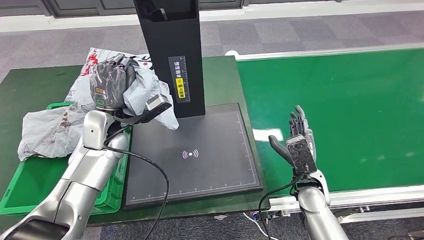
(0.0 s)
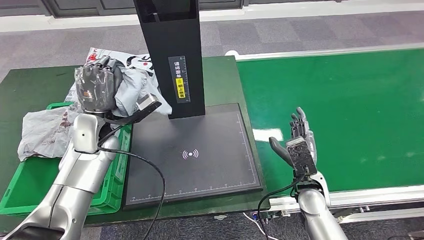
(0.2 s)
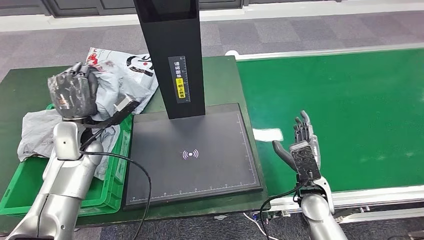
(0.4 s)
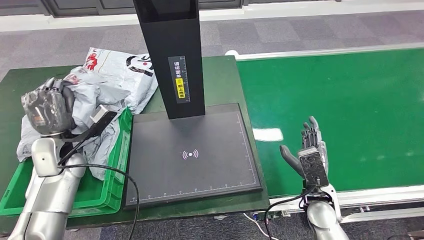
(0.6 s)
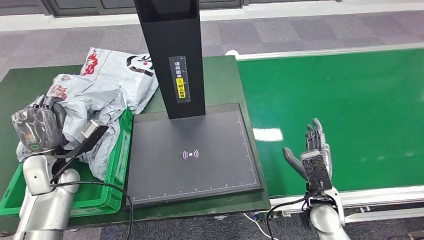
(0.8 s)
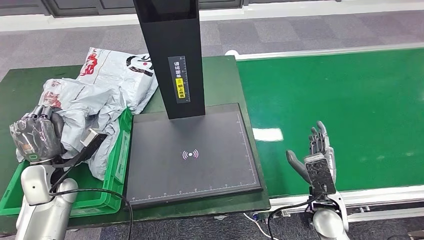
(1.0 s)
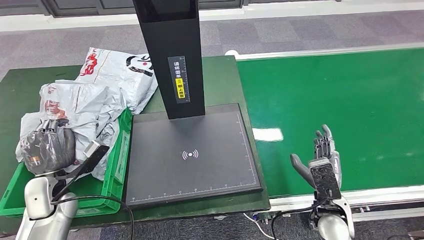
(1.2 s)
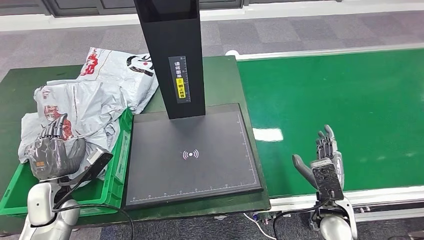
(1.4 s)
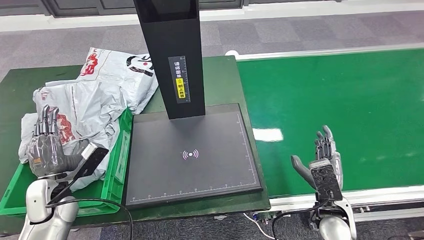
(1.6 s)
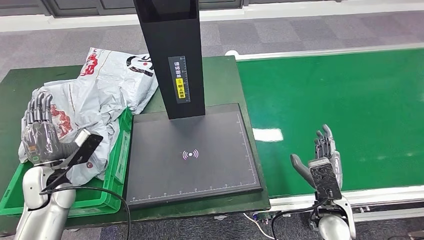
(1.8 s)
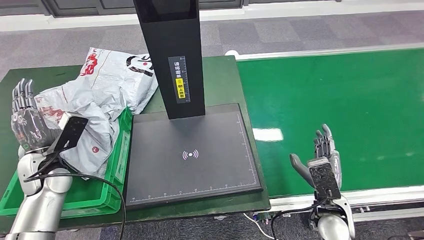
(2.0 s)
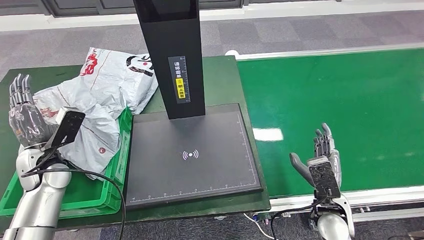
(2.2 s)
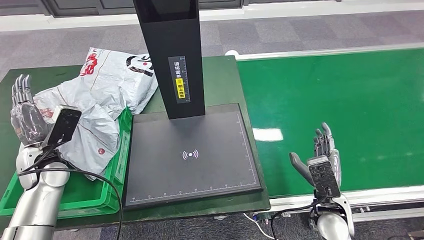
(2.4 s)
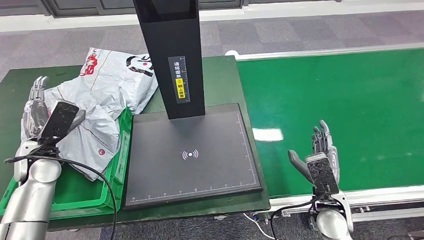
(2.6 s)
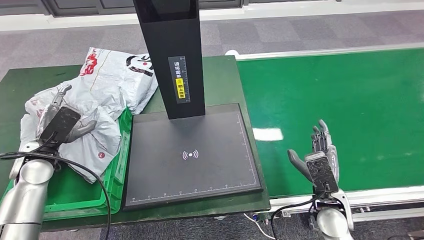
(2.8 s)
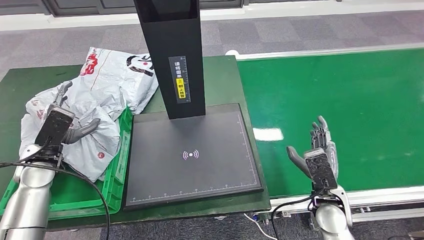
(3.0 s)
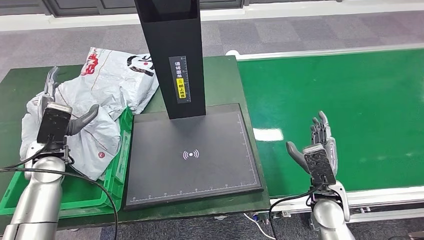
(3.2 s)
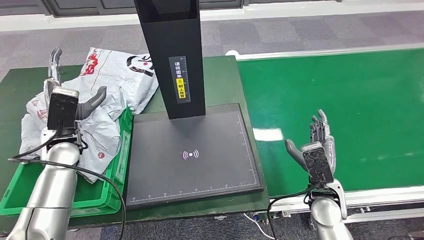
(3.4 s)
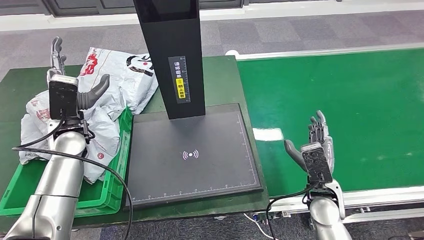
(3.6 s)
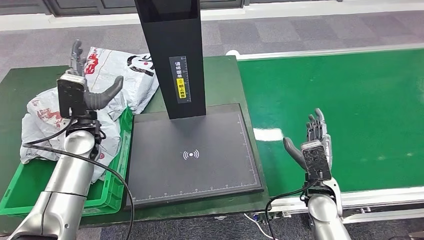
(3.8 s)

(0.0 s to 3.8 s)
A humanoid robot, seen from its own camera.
Step, 1.0 s - 3.8 s: Place the parcel into the delivery box.
1.2 s - 2.6 s: The left hand is displaced forward and upward by some 10 cm.
2.6 s - 3.8 s: The left hand travels to the right by approximately 10 cm.
